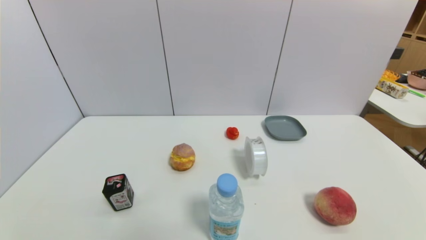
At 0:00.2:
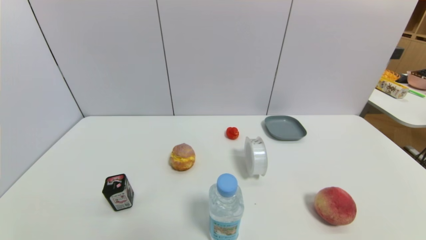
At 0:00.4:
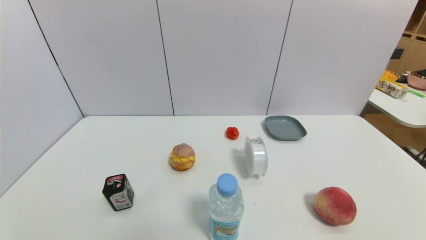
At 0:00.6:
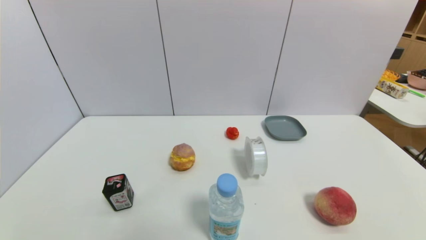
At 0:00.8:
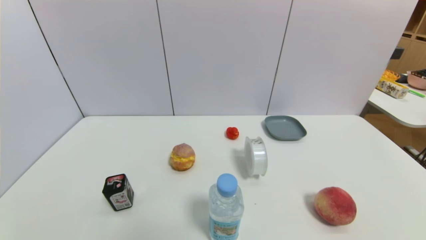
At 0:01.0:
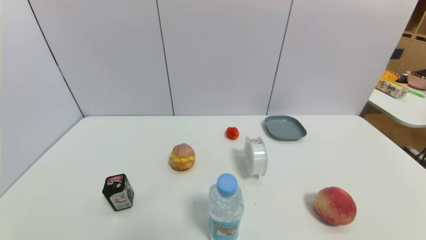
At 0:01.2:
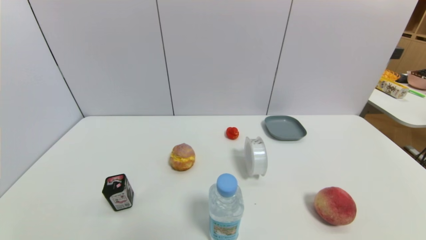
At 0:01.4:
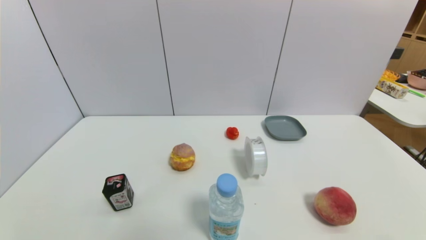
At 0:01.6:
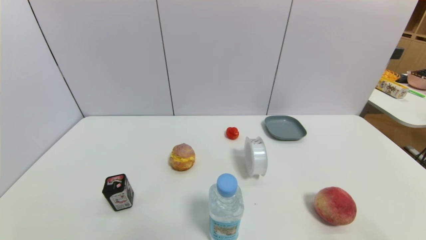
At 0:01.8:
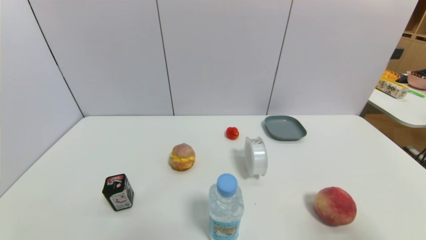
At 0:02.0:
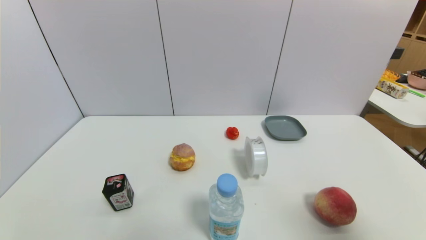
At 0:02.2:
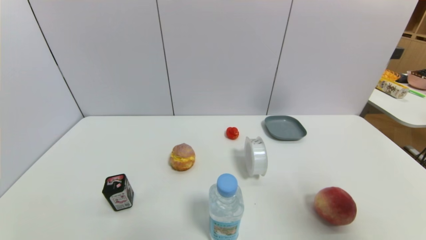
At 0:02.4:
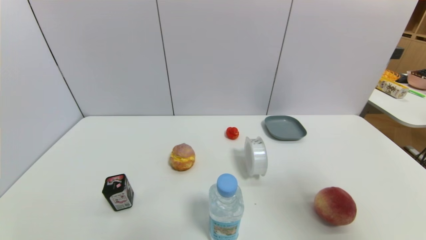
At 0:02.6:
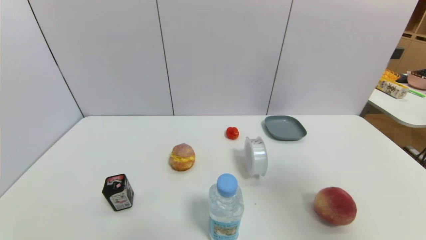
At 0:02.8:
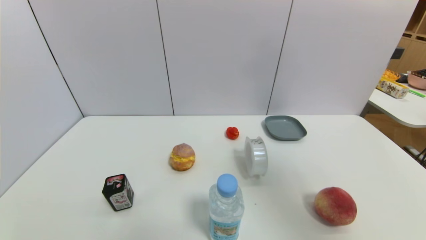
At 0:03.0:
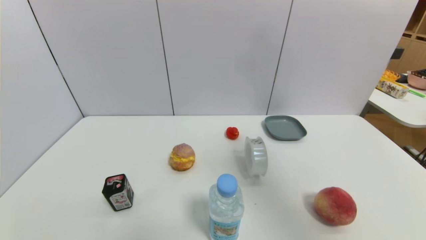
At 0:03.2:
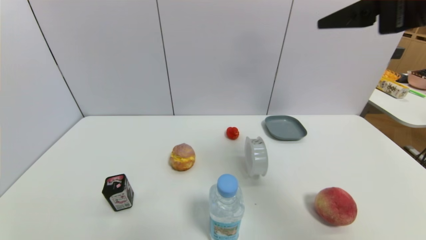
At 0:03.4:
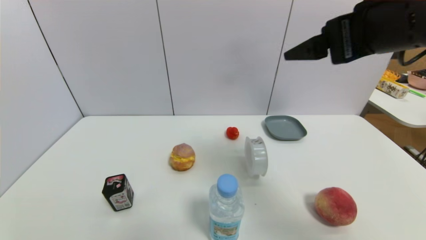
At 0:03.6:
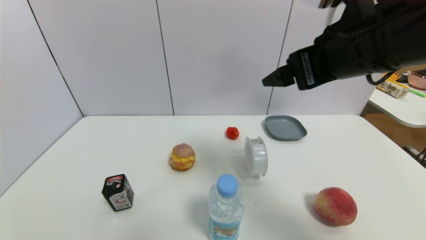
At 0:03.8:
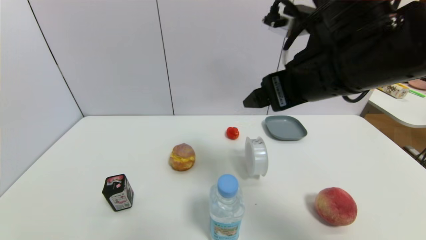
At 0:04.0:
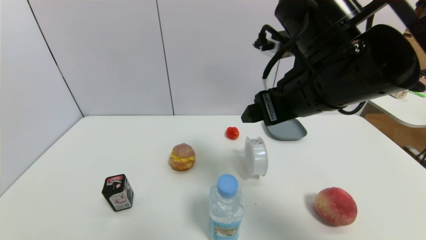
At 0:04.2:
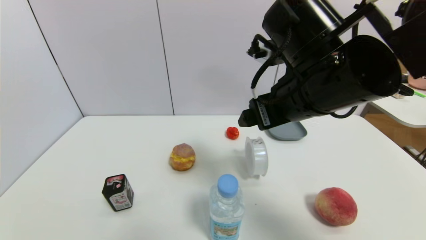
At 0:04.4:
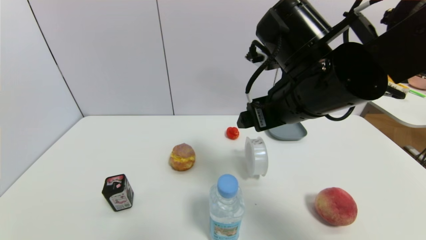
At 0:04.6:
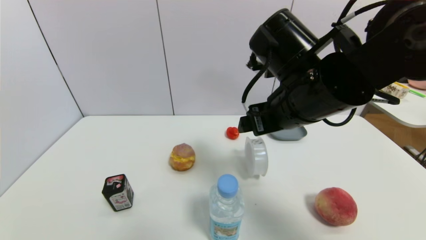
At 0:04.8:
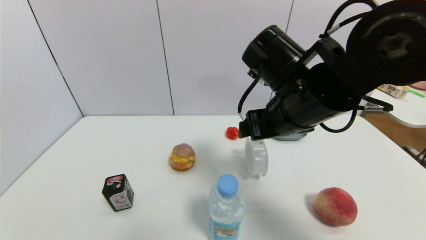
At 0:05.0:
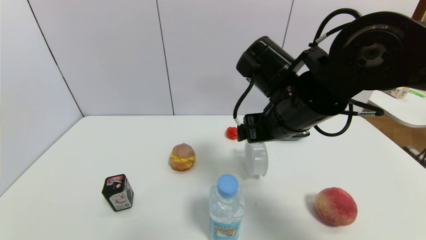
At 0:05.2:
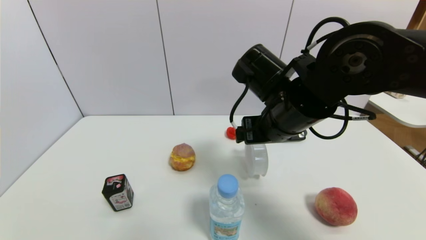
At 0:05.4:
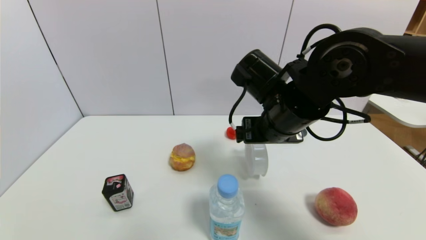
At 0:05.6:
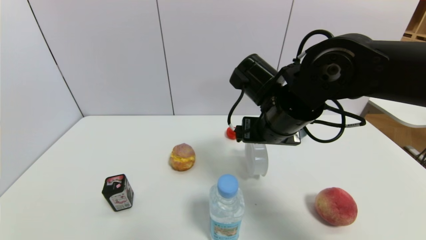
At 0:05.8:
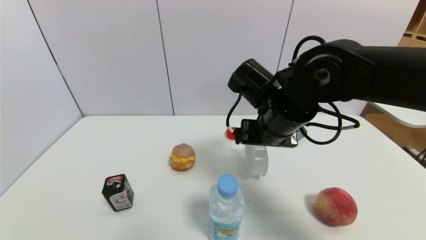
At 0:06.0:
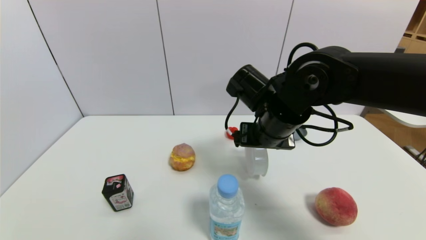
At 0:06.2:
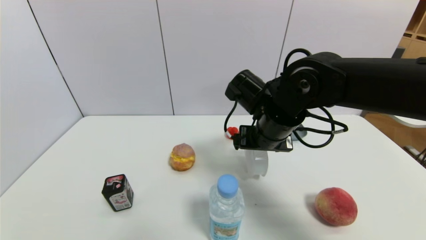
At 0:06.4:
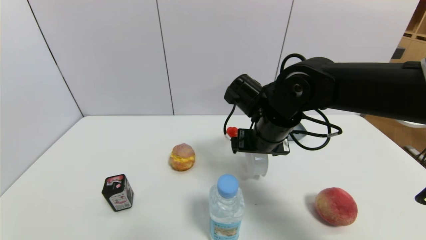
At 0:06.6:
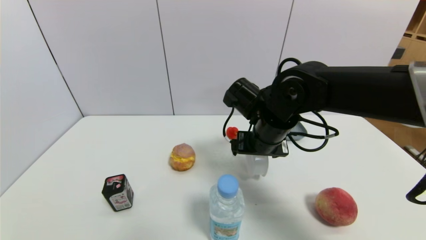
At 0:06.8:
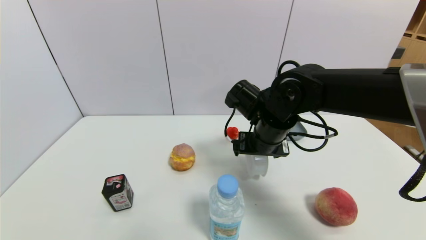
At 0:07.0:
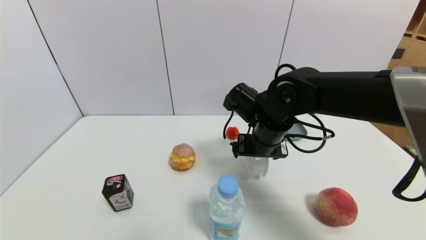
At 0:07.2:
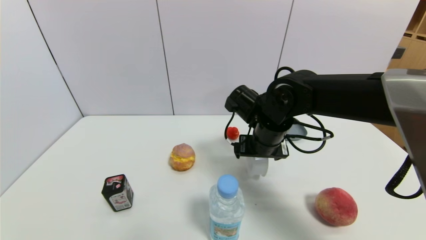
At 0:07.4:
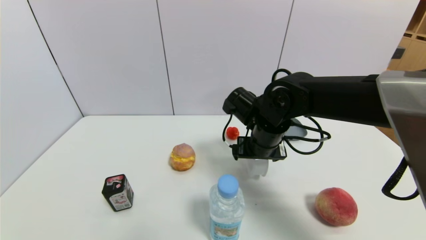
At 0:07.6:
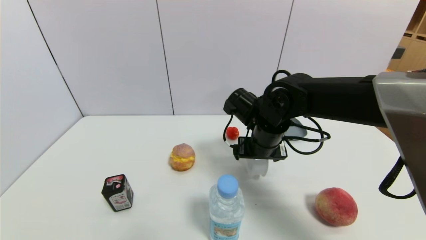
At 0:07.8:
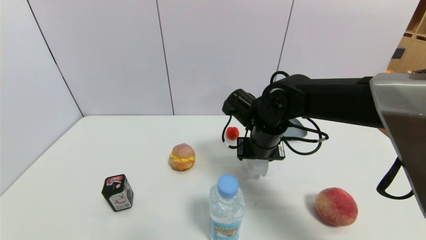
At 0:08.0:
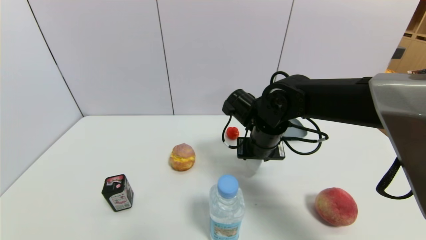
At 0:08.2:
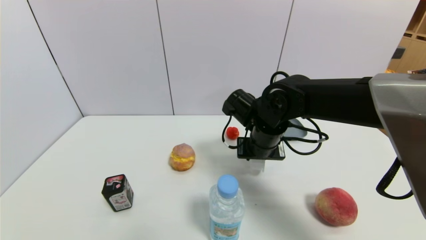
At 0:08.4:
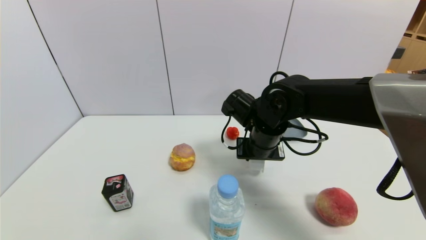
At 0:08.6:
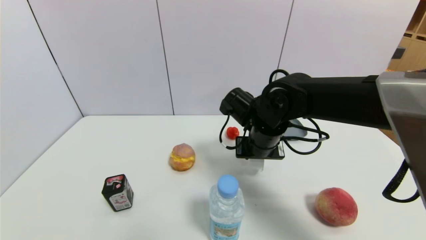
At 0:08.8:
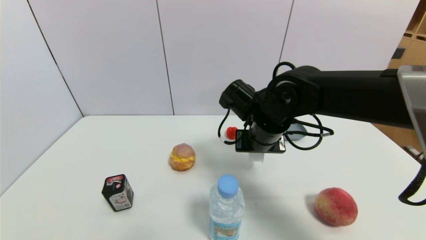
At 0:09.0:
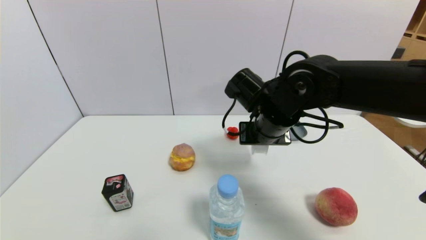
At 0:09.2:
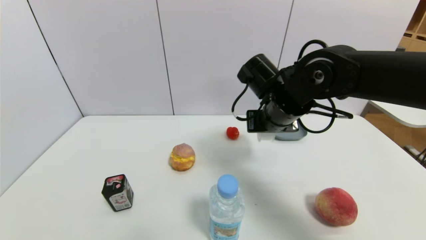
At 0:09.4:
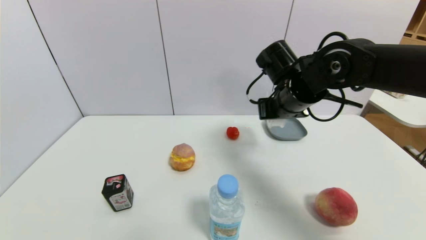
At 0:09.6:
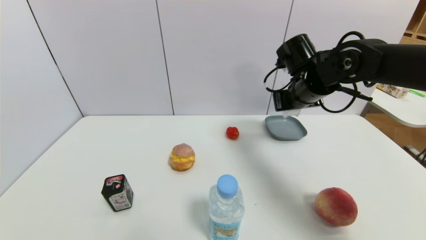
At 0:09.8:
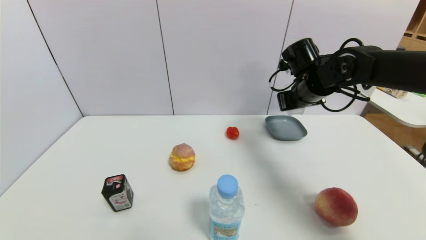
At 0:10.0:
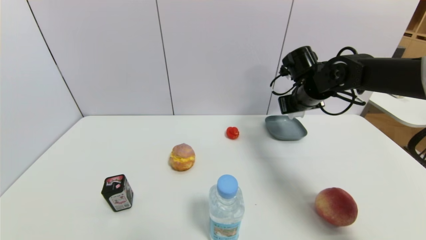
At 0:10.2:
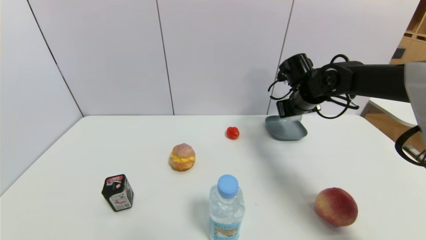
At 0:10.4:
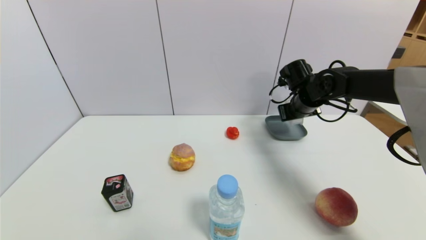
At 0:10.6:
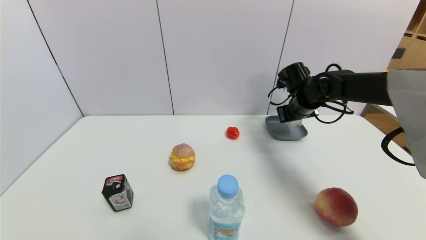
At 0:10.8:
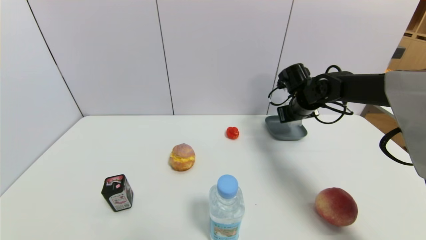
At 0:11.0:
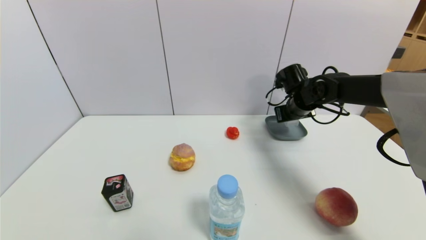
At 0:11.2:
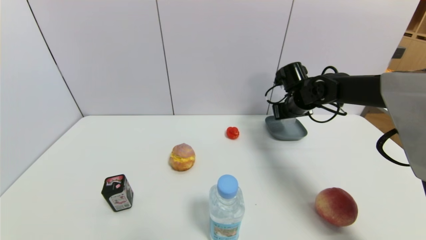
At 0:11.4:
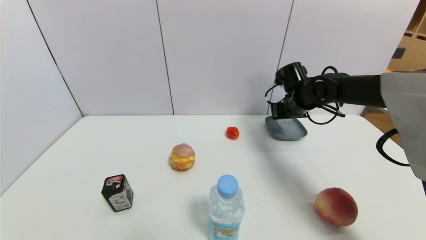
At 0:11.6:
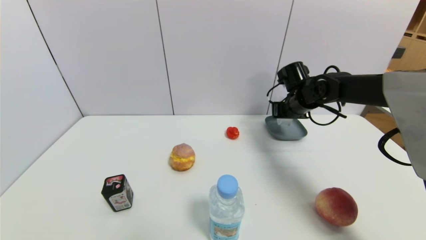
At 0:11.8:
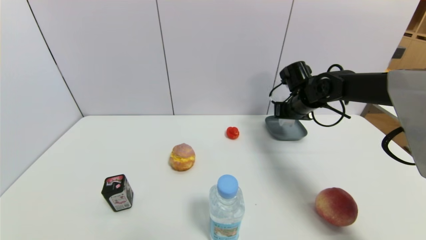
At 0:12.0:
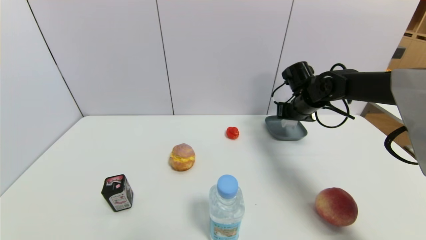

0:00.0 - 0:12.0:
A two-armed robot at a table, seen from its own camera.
Task of the whole recording: use a gripper to pick the target object and place on the dish.
Step, 0:00.0 - 0:08.2: Grasp the tape with the right gripper.
0:01.6 - 0:03.0: The right gripper heads upward and forward, covering roughly 30 cm.
0:03.0 - 0:04.4: The right gripper goes roughly 20 cm to the left, downward and forward.
0:04.4 - 0:06.0: The right gripper heads downward and forward, covering some 10 cm.
0:06.0 - 0:07.6: The right gripper ends up roughly 5 cm from where it was.
0:07.6 - 0:09.0: The right gripper closes.
0:09.0 - 0:10.4: The right gripper travels to the right and forward by some 20 cm.
0:10.4 - 0:12.0: There are only small adjustments of the grippers.

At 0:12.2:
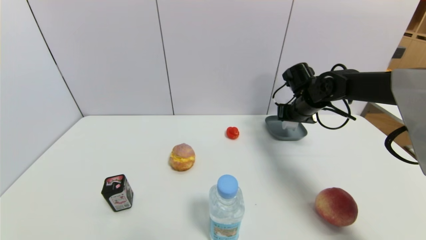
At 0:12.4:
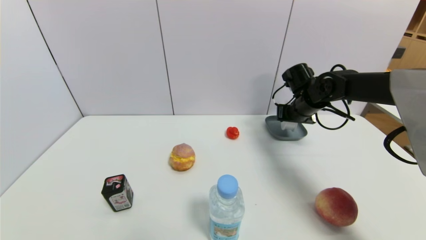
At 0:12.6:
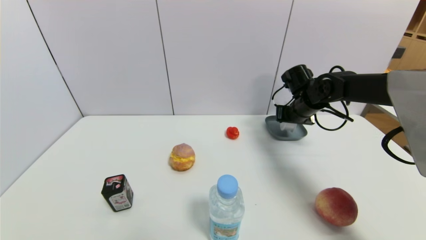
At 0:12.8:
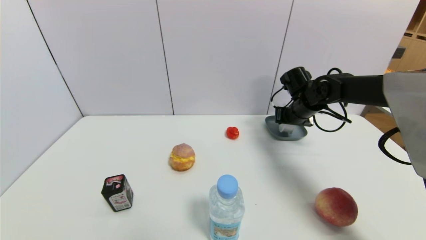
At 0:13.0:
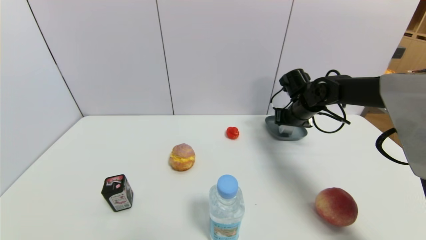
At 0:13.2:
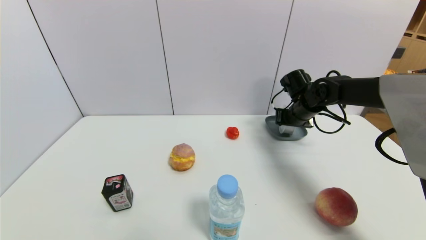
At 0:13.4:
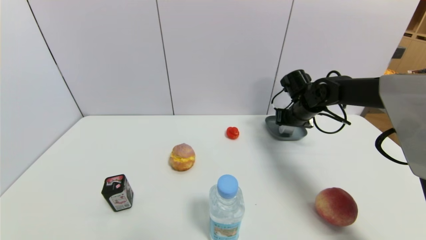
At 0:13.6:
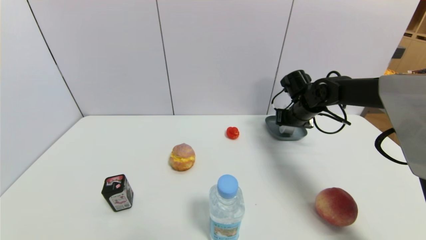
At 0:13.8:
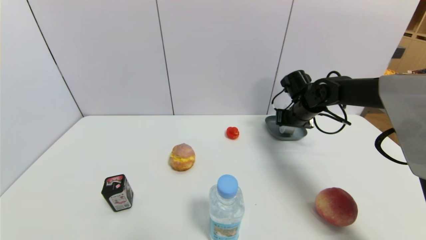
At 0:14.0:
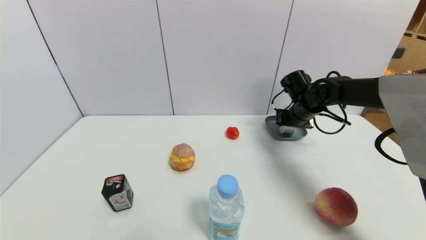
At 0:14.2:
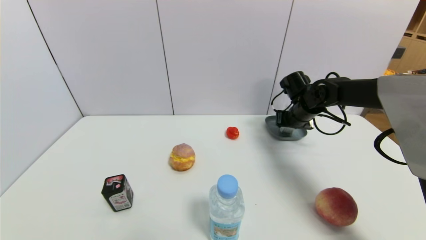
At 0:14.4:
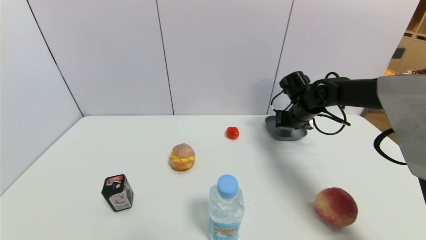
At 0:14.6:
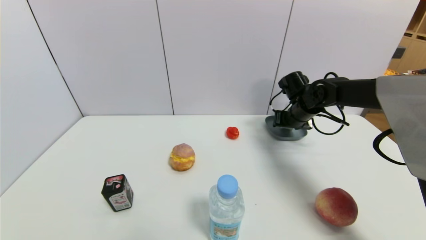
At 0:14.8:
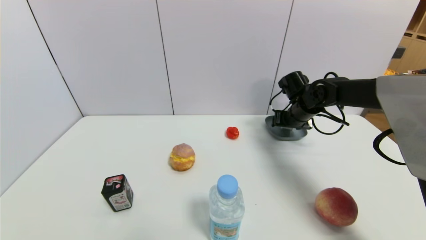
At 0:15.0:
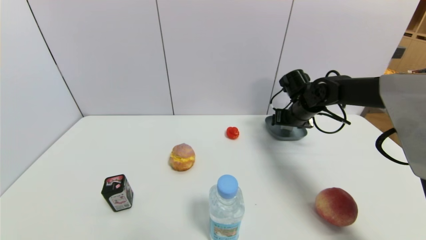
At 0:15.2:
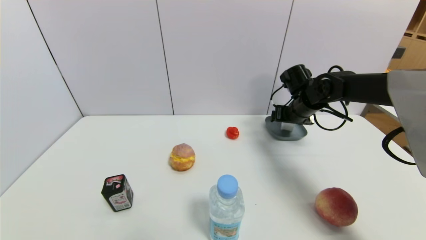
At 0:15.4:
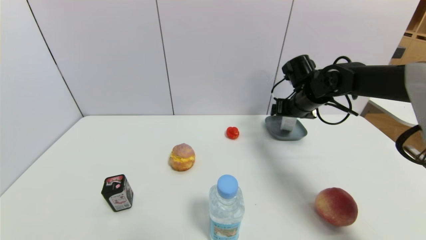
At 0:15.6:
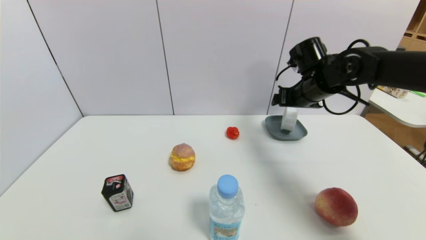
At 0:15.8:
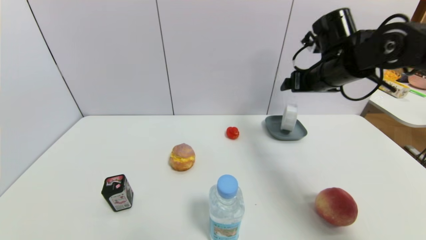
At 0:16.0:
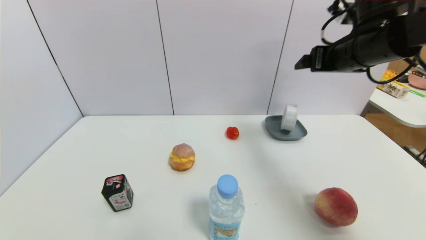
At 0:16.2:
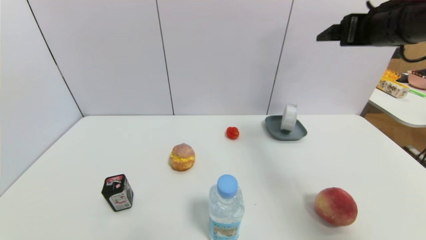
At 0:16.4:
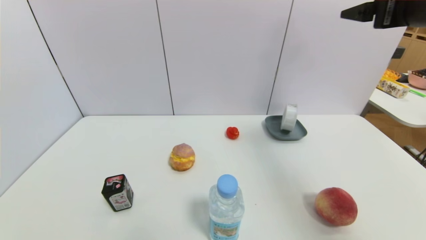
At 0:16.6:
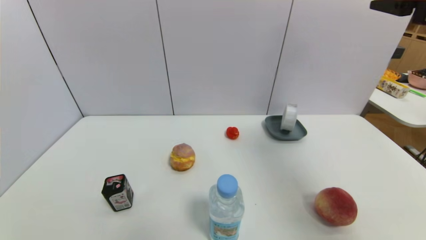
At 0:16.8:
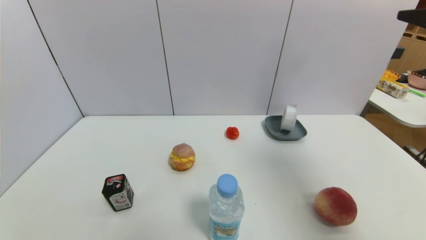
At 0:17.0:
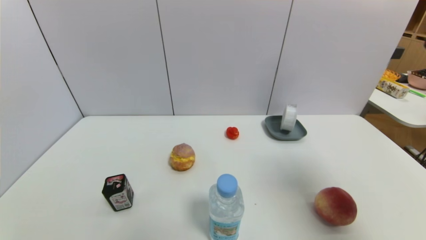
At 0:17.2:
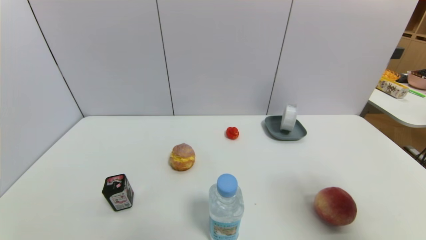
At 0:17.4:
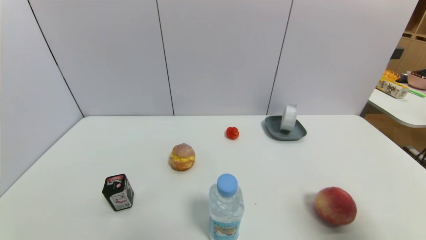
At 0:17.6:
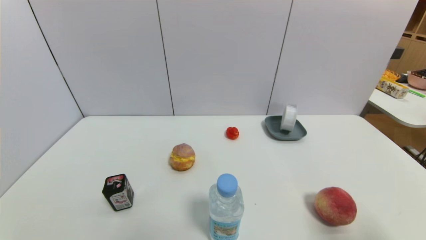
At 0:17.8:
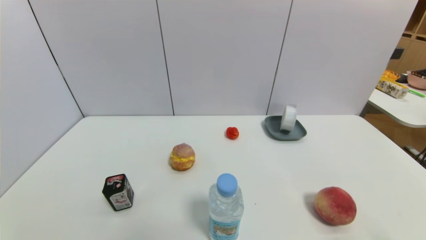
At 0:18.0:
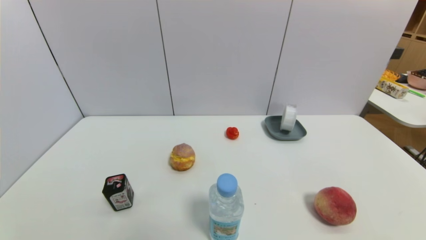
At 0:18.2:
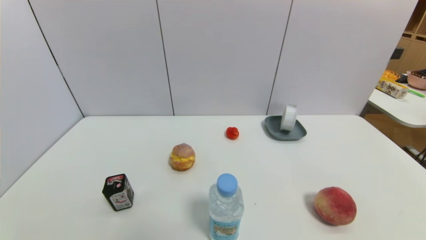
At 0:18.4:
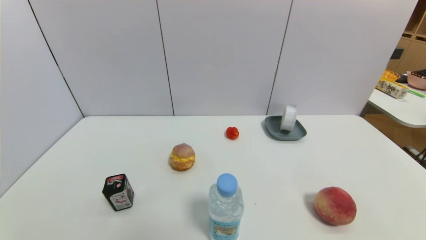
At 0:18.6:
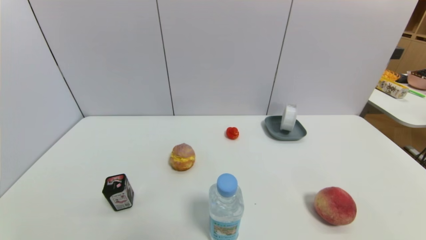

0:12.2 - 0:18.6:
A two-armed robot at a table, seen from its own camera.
Task of the whole recording: use a gripper to pick the target object and place on the dish.
Step, 0:12.2 - 0:15.6: Place the tape on the dish with the right gripper.
0:12.2 - 0:13.8: There are only small adjustments of the grippers.
0:13.8 - 0:15.4: The right gripper moves approximately 5 cm, and opens up.
0:15.4 - 0:17.0: The right gripper heads backward and upward, covering about 35 cm.
0:17.0 - 0:18.6: The right gripper travels downward and backward by some 30 cm.
